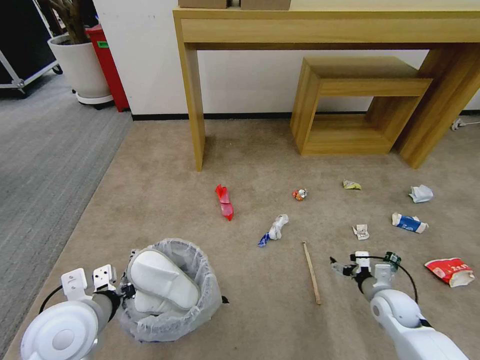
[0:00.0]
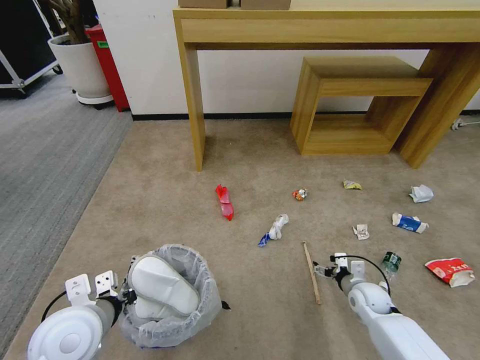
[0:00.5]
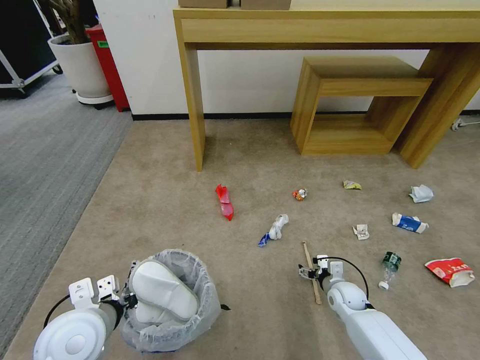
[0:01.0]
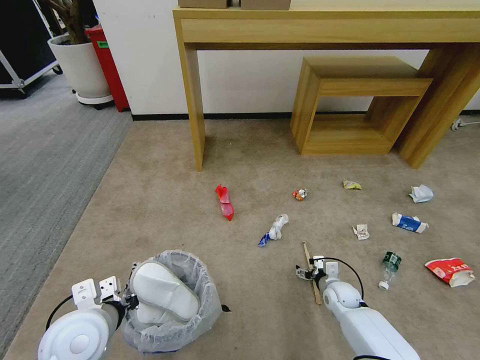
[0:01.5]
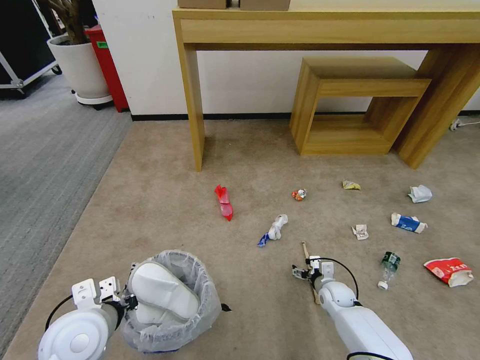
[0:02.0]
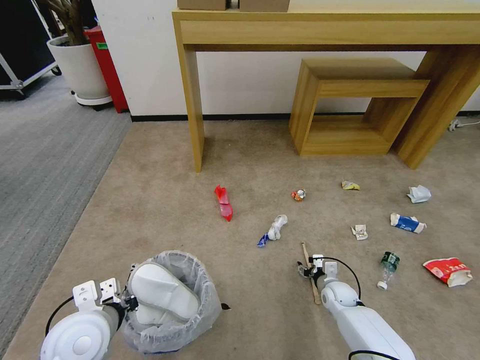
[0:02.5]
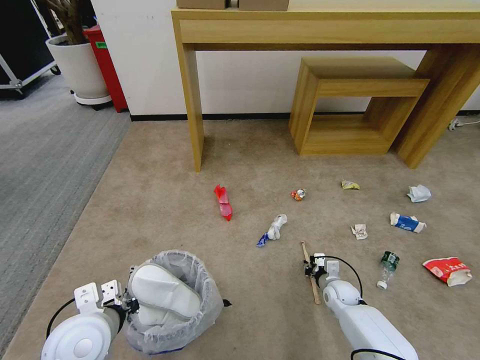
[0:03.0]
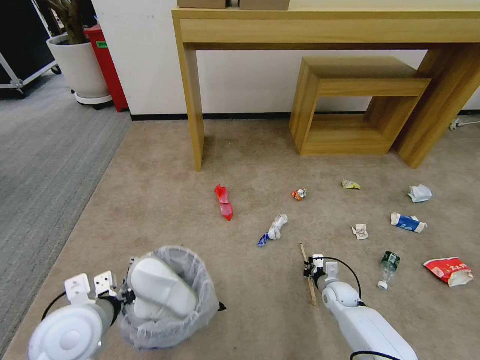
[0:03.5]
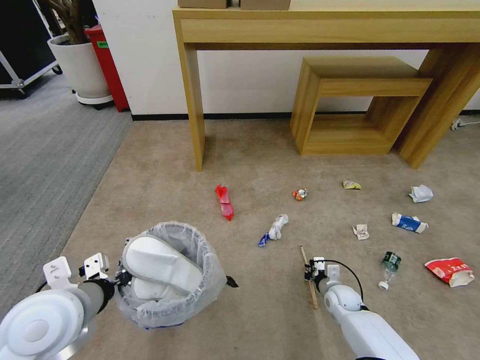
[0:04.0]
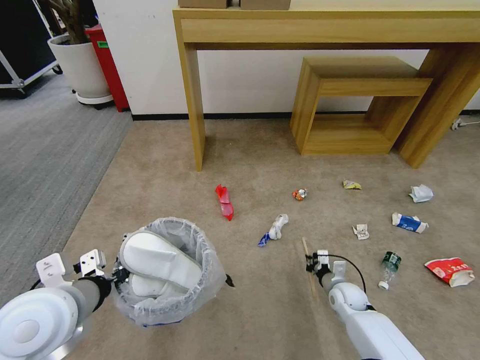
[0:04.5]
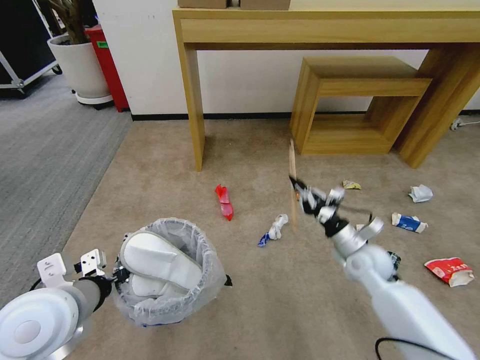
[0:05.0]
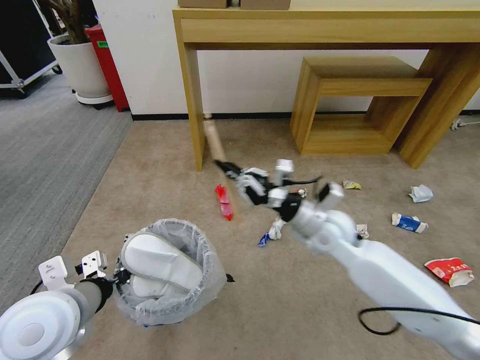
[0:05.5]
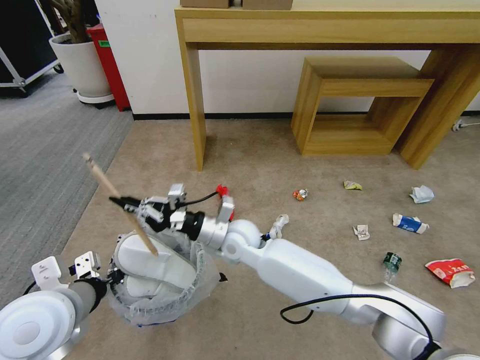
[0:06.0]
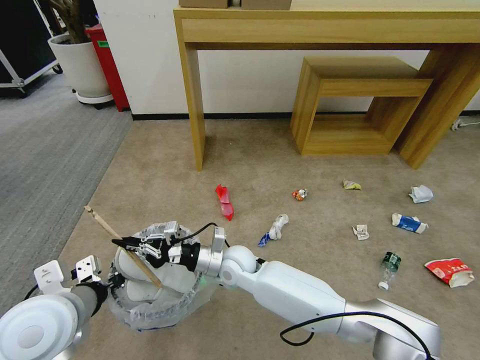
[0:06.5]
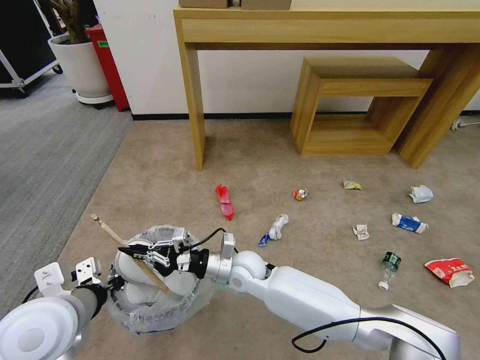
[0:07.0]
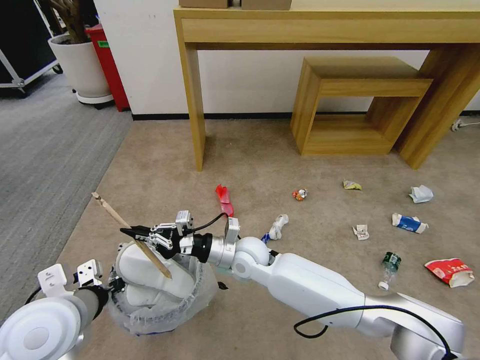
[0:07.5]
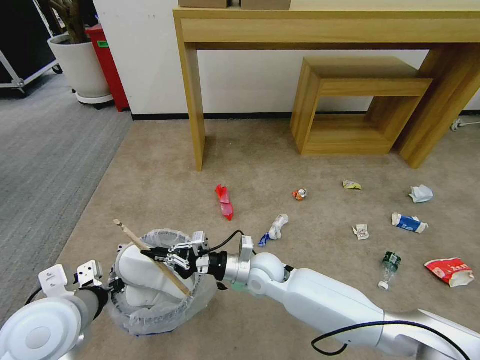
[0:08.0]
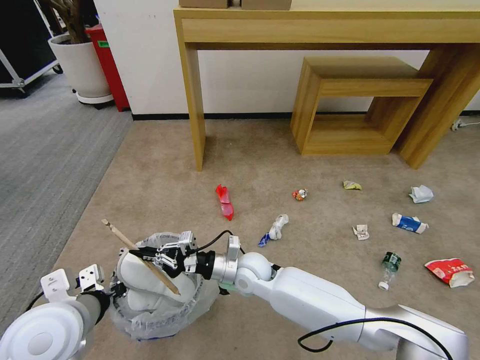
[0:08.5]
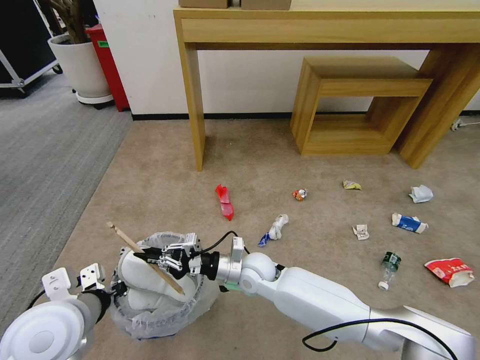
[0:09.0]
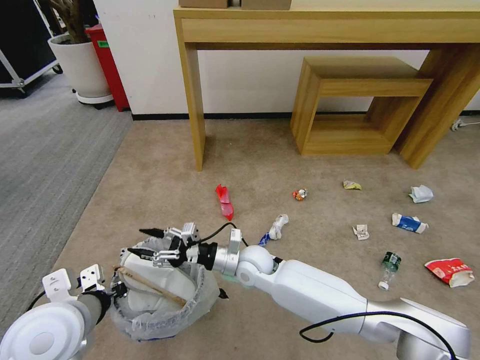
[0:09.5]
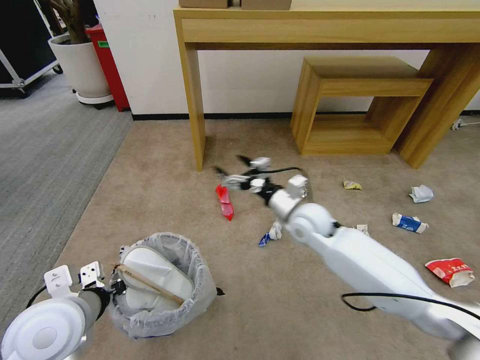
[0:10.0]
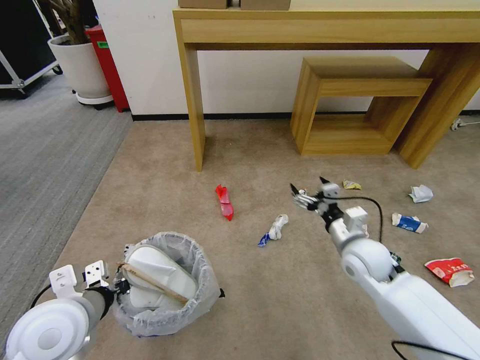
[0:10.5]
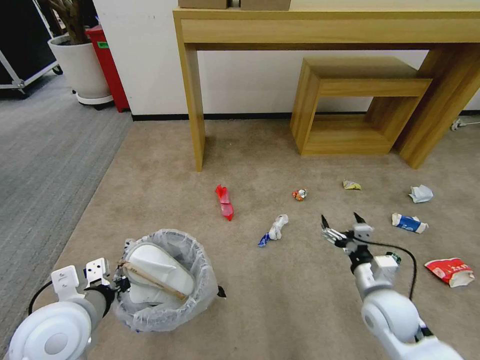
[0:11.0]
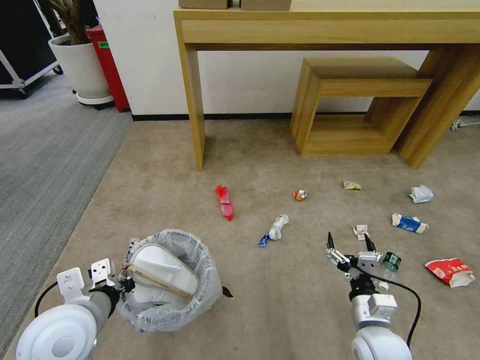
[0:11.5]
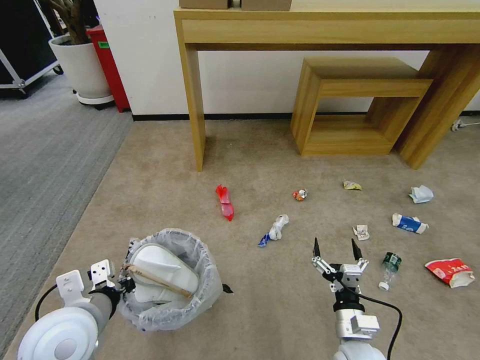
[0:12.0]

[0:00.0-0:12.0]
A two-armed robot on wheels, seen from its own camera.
Task of the whole recording: Pick up the trash bin and place the garbage on the floor into it.
0.0 to 2.0 s: The right gripper goes roughly 15 cm downward, to the left and forward.
2.0 to 4.0 s: The left gripper goes some 5 cm upward, while the right gripper closes its fingers.
4.0 to 6.0 s: The right gripper travels to the left and upward by about 40 cm.
6.0 to 8.0 s: The right gripper heads downward and to the right, covering roughly 10 cm.
8.0 to 10.0 s: The right gripper shifts about 15 cm to the right, upward and forward, and opens.
10.0 to 12.0 s: The right gripper goes about 30 cm backward and downward.

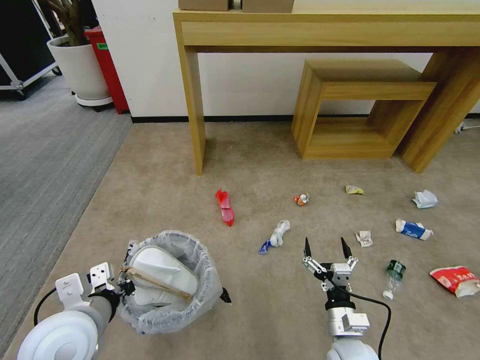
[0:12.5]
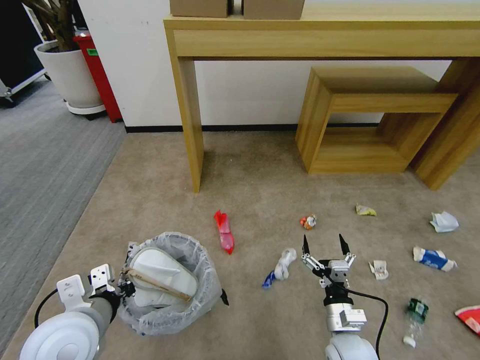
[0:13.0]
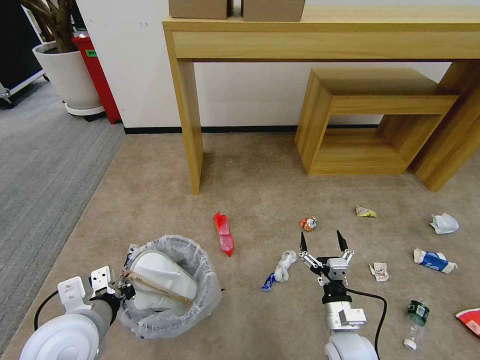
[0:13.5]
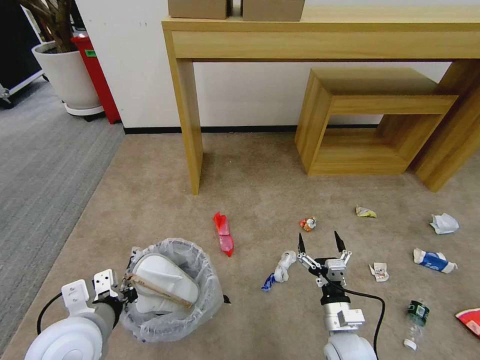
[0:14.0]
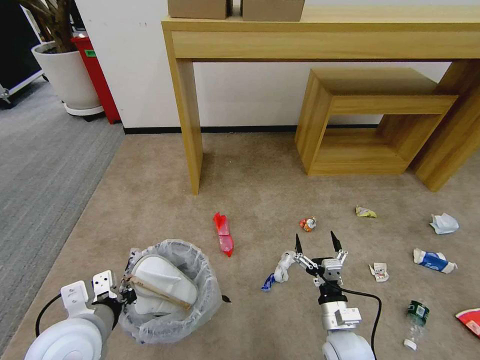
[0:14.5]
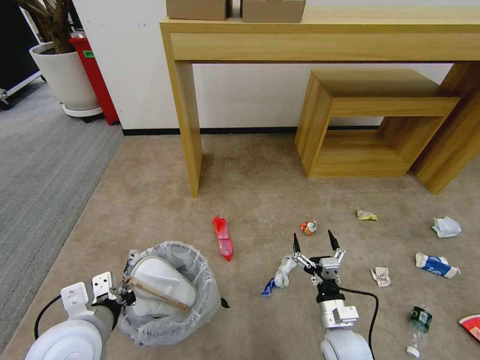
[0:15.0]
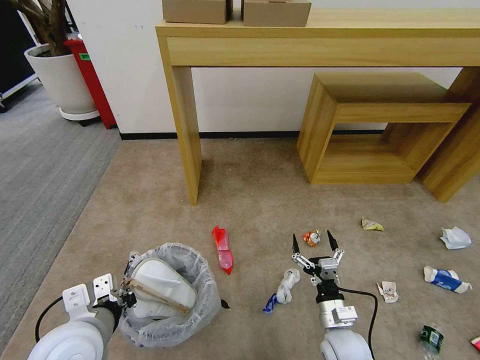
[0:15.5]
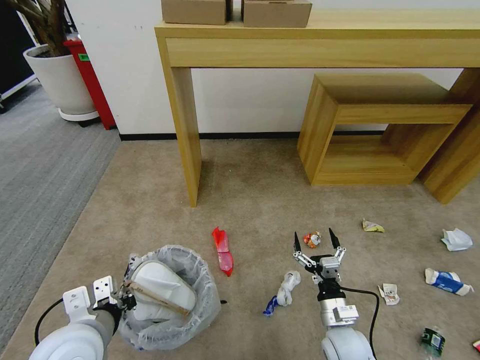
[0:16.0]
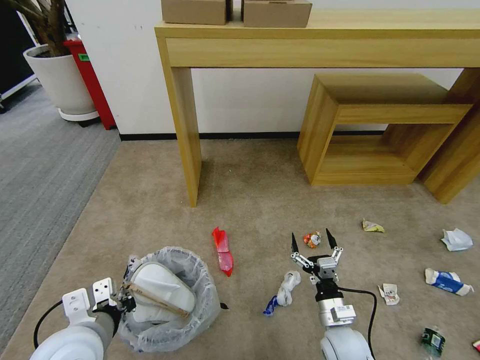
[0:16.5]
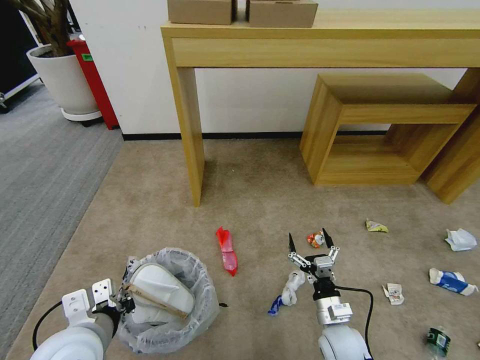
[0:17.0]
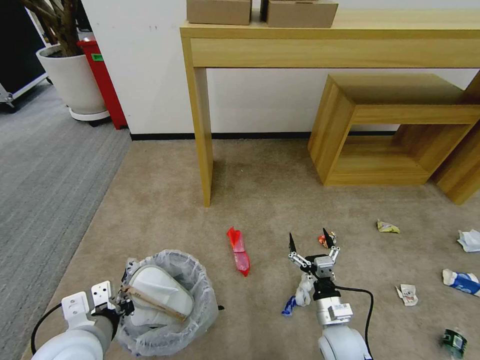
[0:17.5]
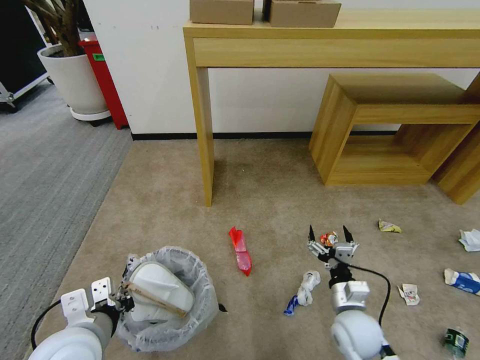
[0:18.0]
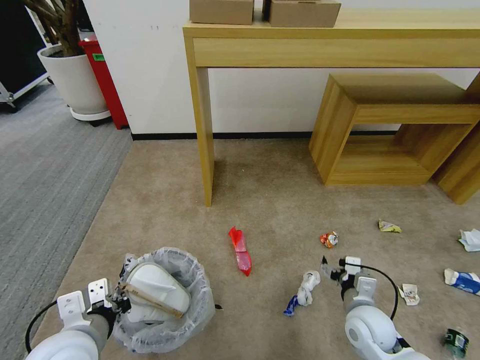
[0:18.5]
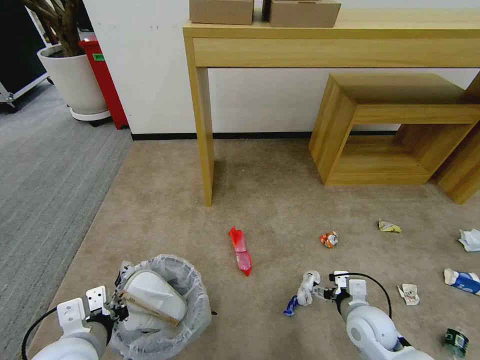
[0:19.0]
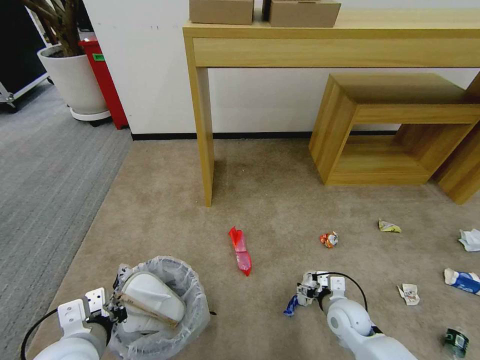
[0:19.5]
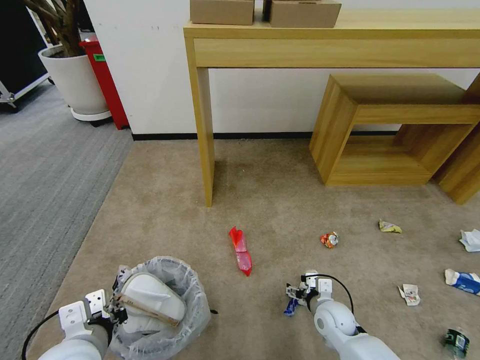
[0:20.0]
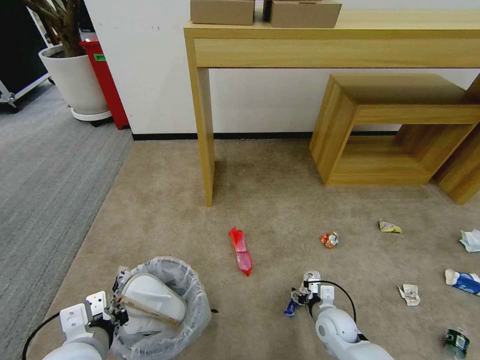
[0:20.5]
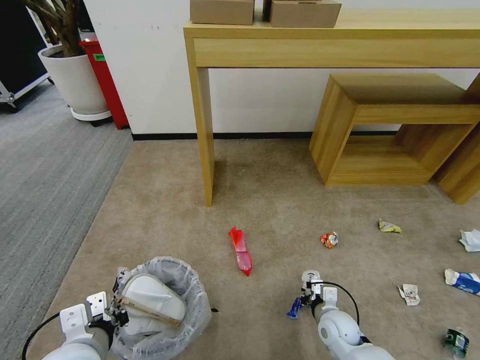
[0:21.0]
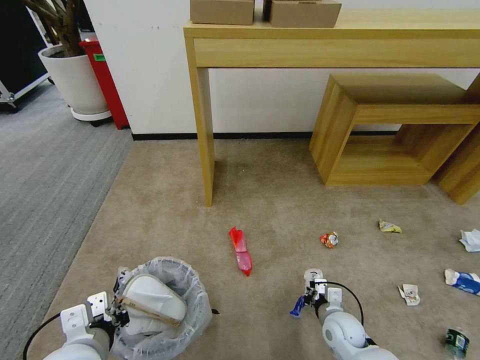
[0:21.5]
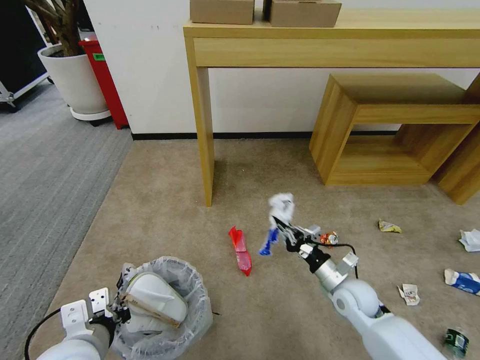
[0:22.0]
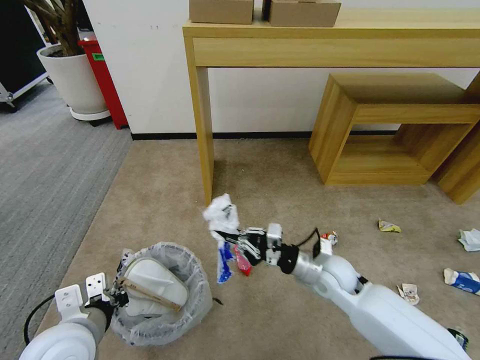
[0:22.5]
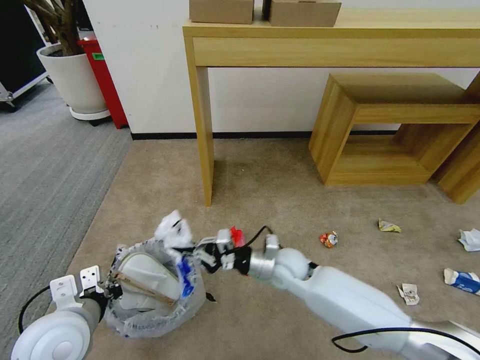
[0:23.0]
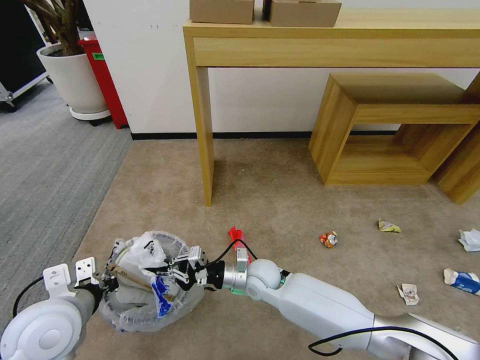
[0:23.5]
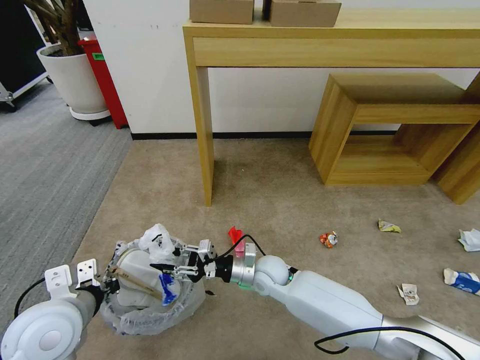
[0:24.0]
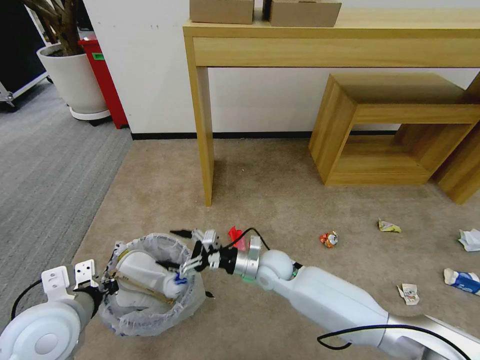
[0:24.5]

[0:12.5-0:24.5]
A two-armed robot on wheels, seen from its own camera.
Task of the whole recording: Pick up the trash bin and place the garbage on the floor into it.
16.5 to 18.5 s: The right gripper shifts approximately 5 cm to the right.
18.5 to 20.5 s: The right gripper goes some 10 cm downward.
20.5 to 22.5 s: The right gripper heads upward, covering some 15 cm, and closes.
22.5 to 24.5 s: The right gripper is displaced to the left by roughly 15 cm, and opens its fingers.

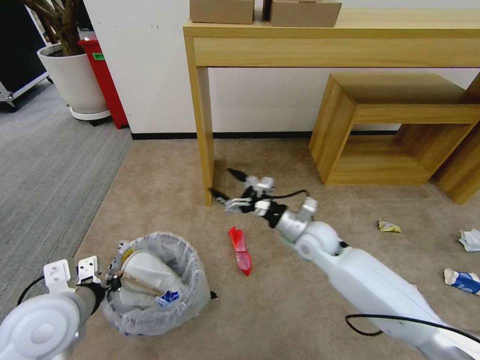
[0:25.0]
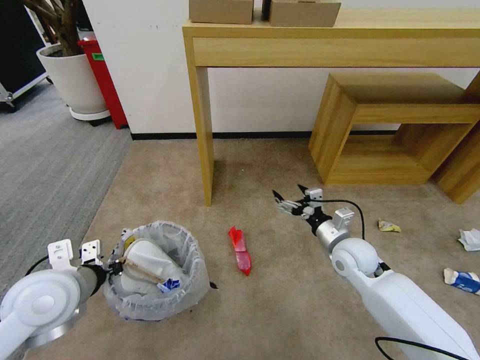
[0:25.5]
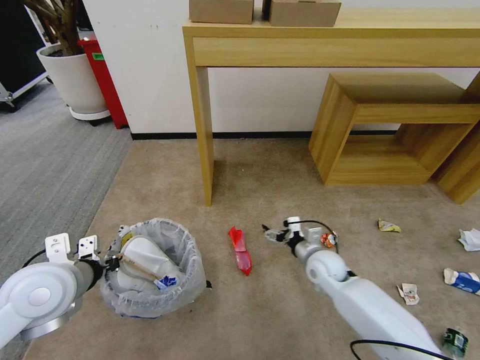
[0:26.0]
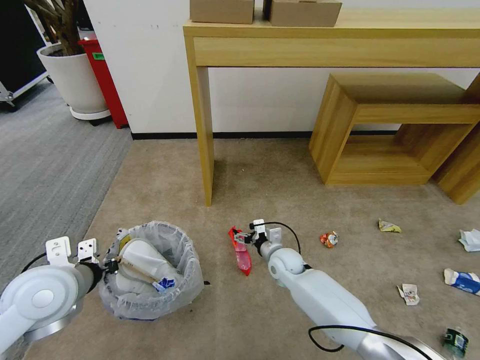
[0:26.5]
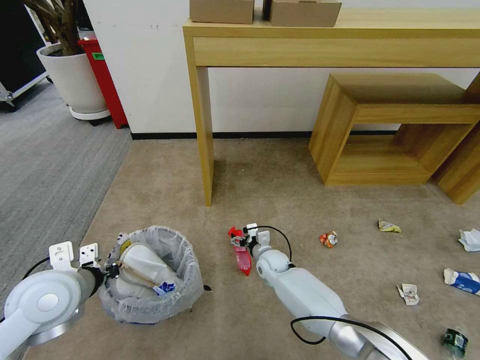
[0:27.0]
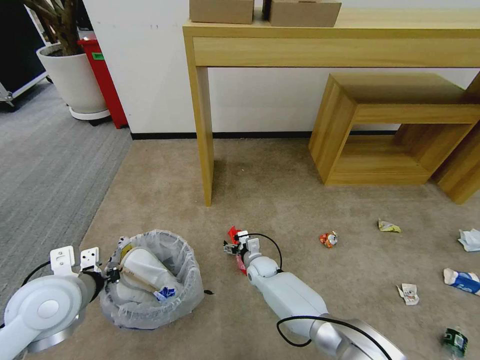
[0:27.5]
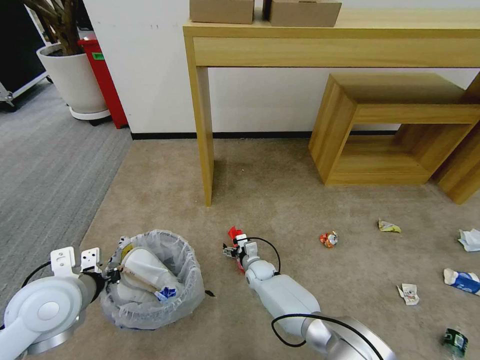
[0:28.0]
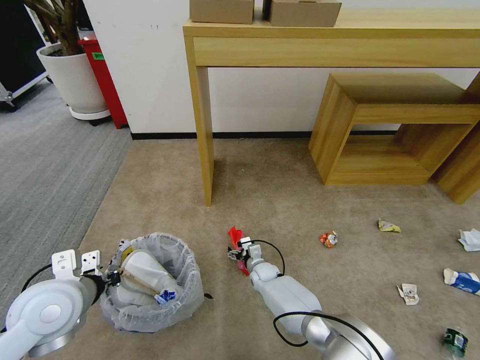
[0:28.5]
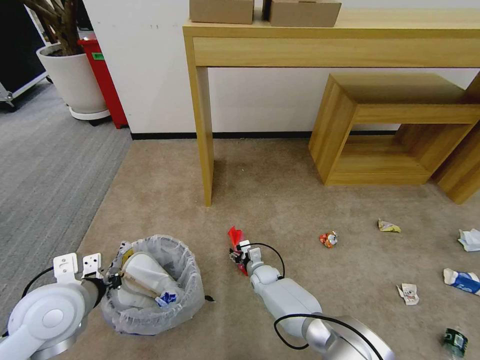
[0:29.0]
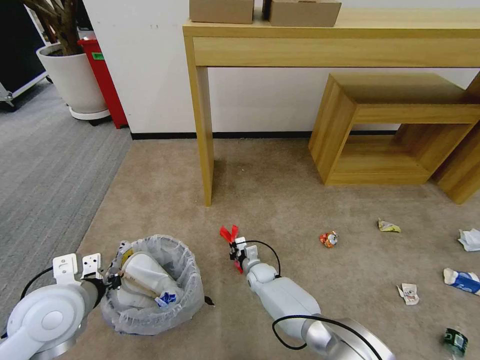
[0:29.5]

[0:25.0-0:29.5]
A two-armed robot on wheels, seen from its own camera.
Task of the whole recording: Pick up the trash bin and place the garbage on the floor into it.
25.0 to 27.0 s: The right gripper is displaced downward by roughly 20 cm.
27.0 to 29.5 s: The right gripper goes approximately 5 cm downward, and closes up.
